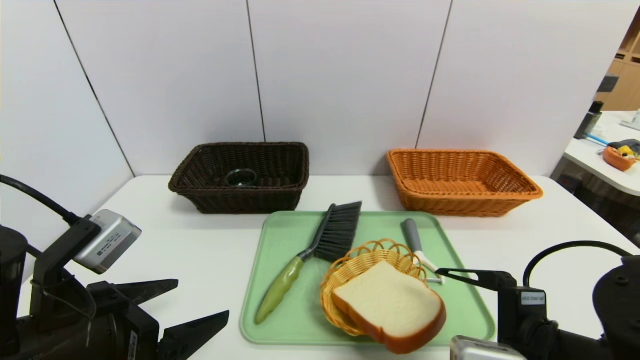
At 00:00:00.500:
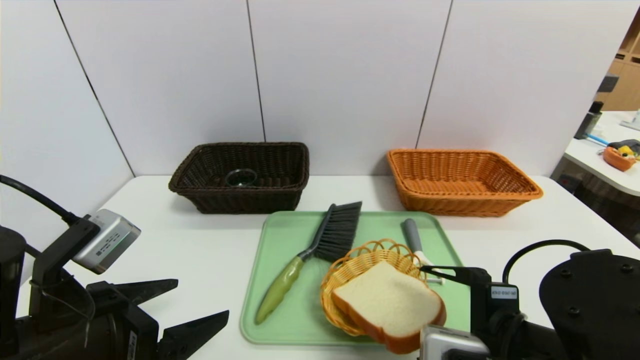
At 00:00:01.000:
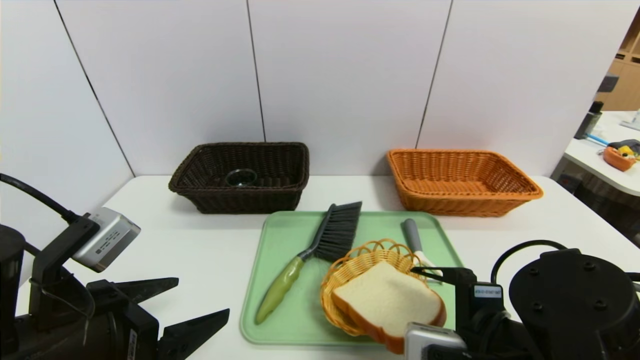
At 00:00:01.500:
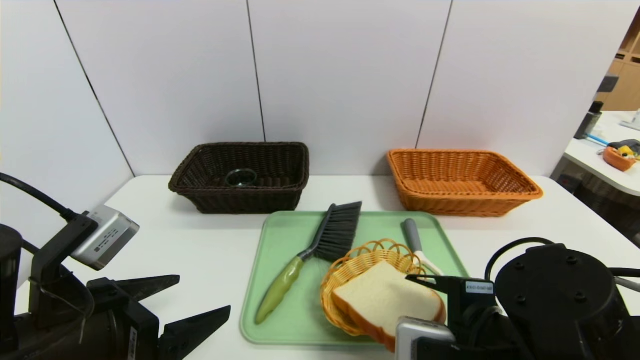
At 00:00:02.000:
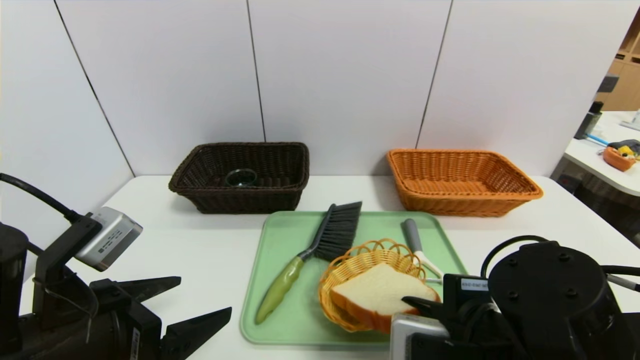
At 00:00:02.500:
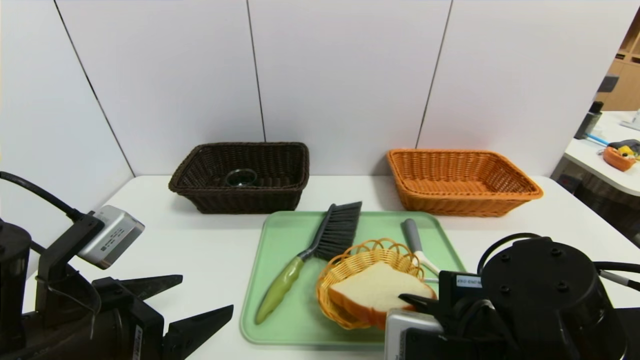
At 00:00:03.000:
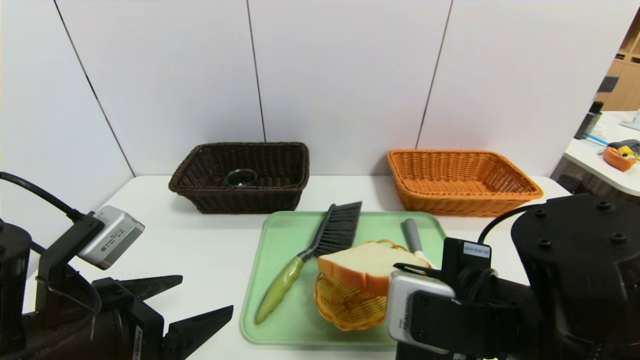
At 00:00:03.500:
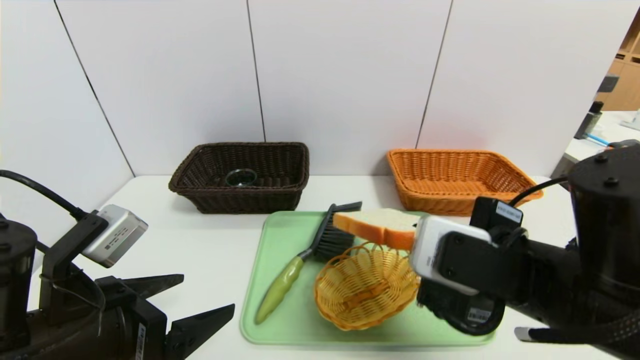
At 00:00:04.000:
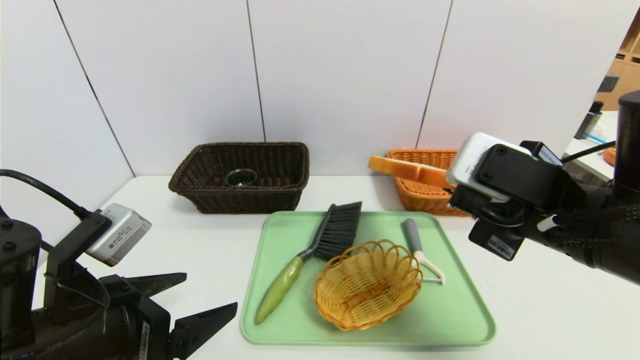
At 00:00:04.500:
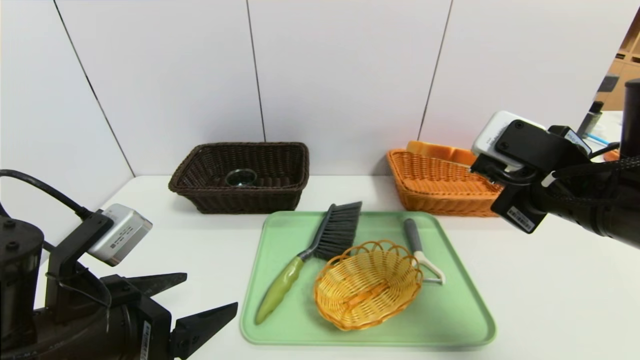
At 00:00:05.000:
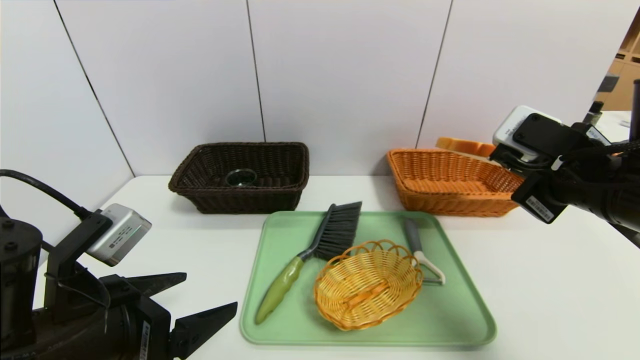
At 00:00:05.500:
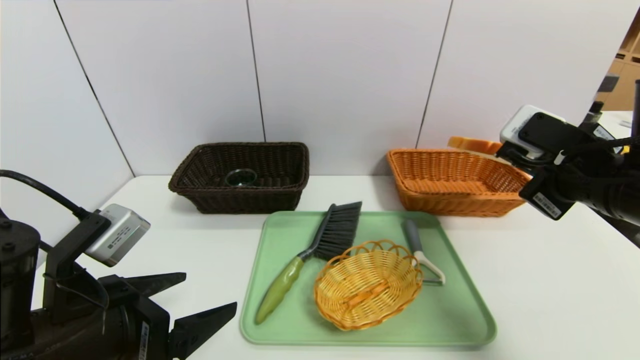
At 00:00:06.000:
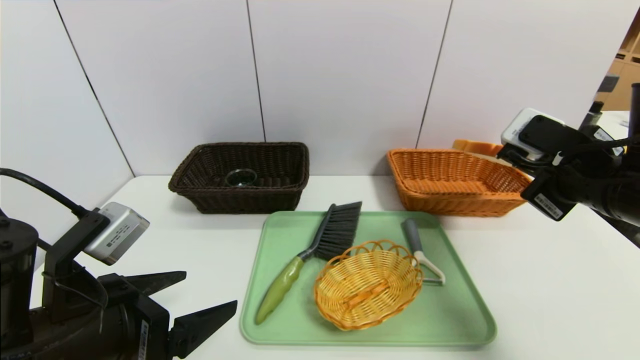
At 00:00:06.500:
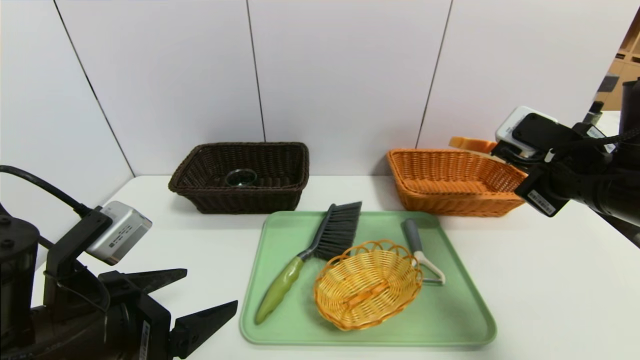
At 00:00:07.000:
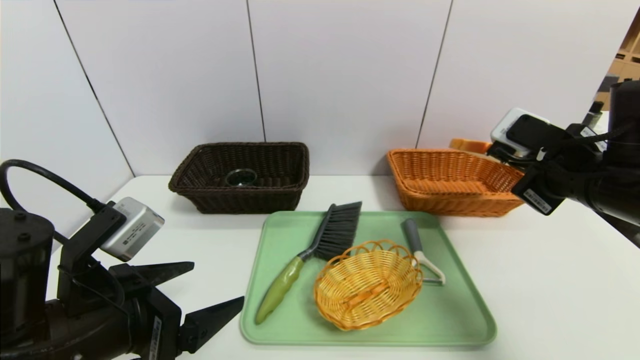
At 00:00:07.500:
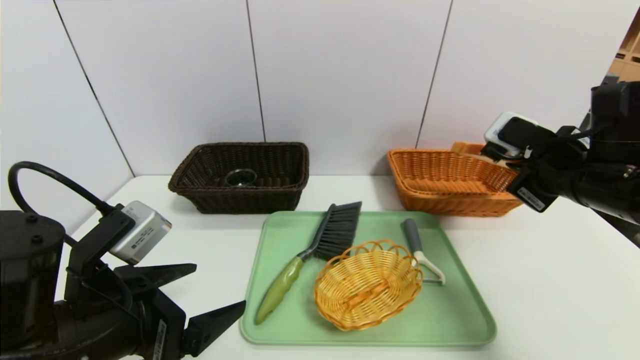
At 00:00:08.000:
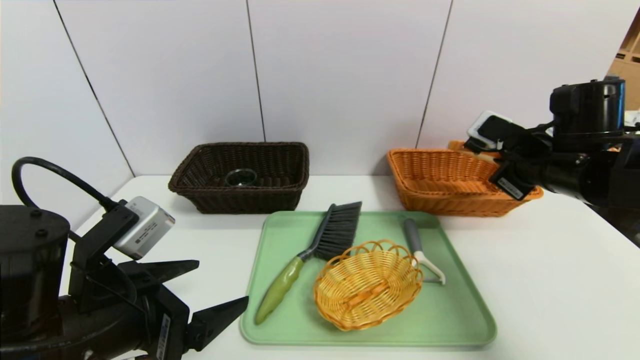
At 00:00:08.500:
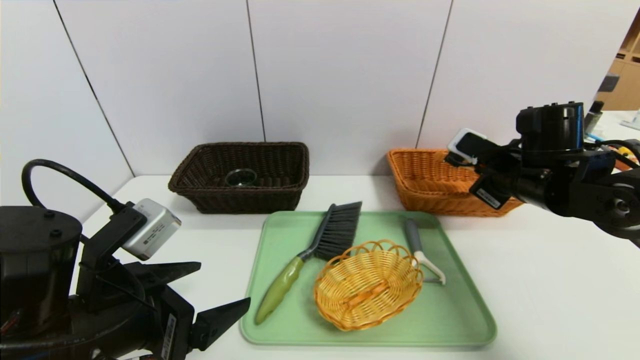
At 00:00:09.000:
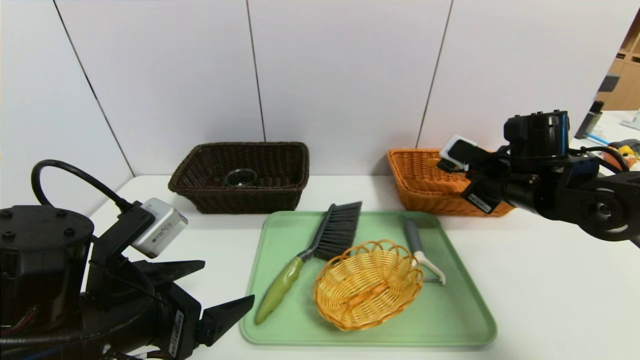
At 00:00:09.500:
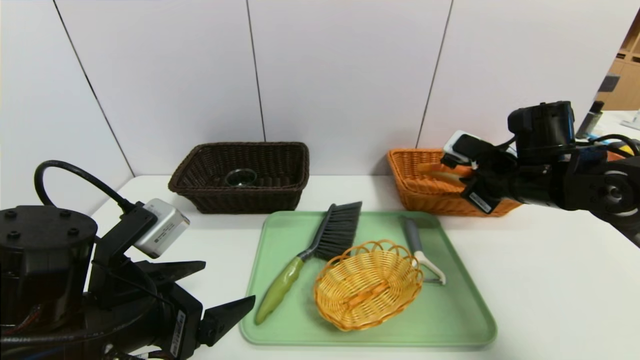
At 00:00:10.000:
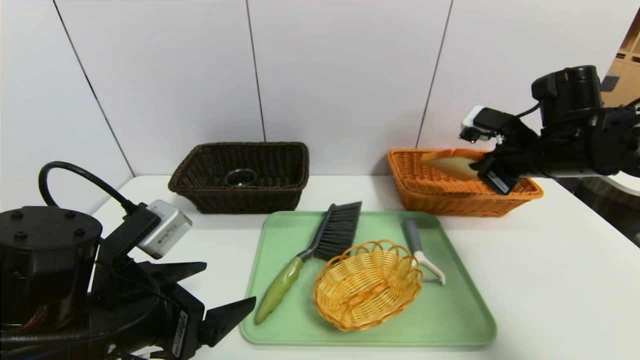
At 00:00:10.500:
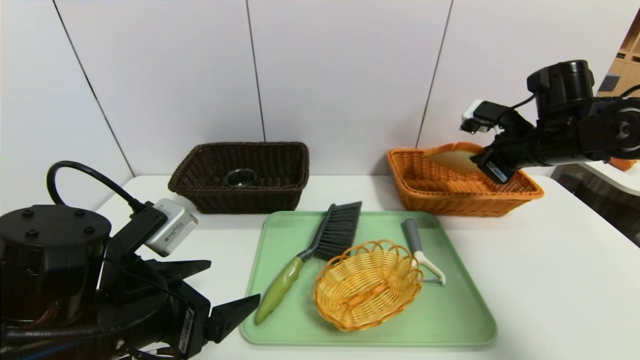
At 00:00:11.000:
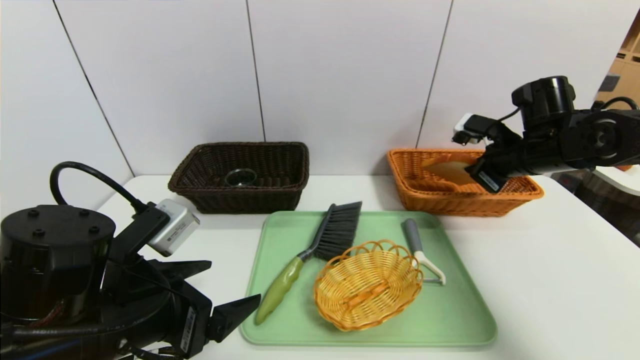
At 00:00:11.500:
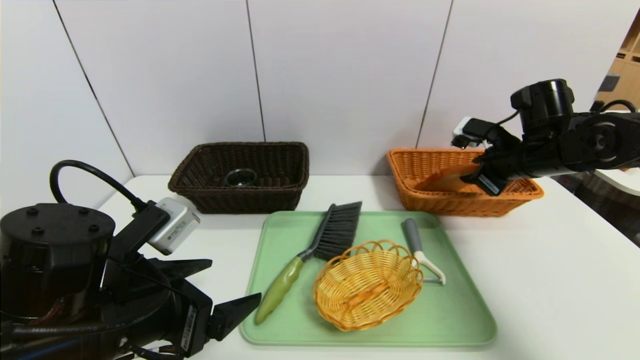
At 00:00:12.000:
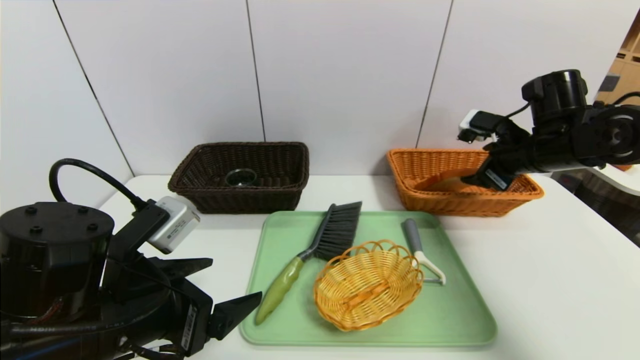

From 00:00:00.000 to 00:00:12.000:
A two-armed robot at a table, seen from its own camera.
Task of the whole recording: place the food in the right basket with the right gripper, and place the non food items in the left basket with the left gripper.
From 00:00:00.000 to 00:00:02.000: The right gripper closes up.
From 00:00:02.000 to 00:00:04.000: The right gripper is displaced upward by about 10 cm.
From 00:00:04.000 to 00:00:06.000: The right gripper goes approximately 10 cm to the right.
From 00:00:06.000 to 00:00:08.000: The right gripper goes about 5 cm forward.
From 00:00:08.000 to 00:00:10.000: The grippers move only a little.
From 00:00:10.000 to 00:00:12.000: The right gripper opens up.

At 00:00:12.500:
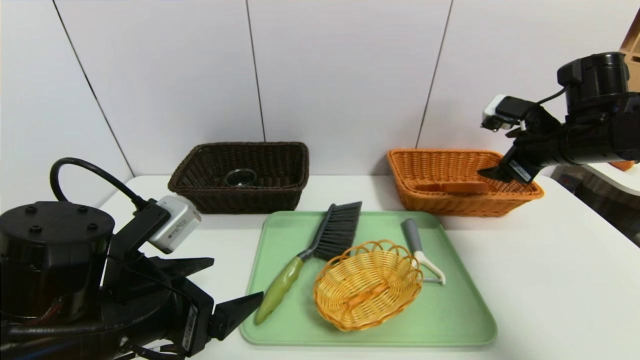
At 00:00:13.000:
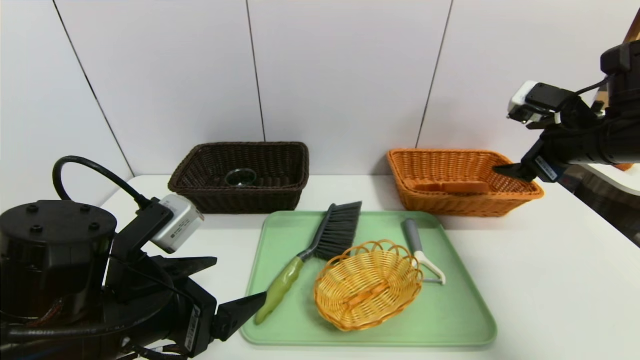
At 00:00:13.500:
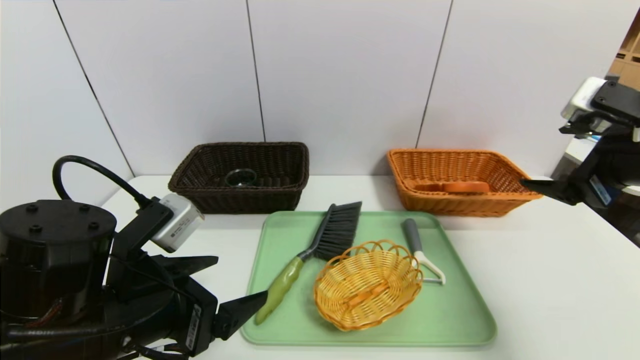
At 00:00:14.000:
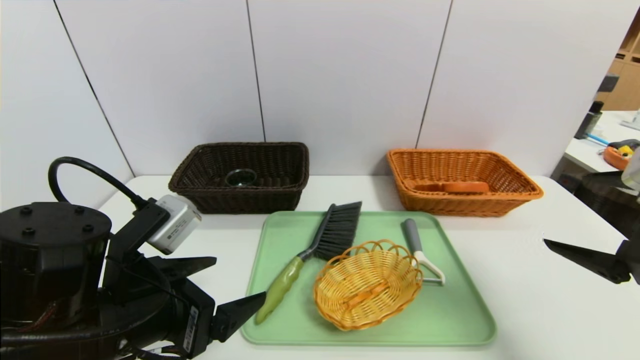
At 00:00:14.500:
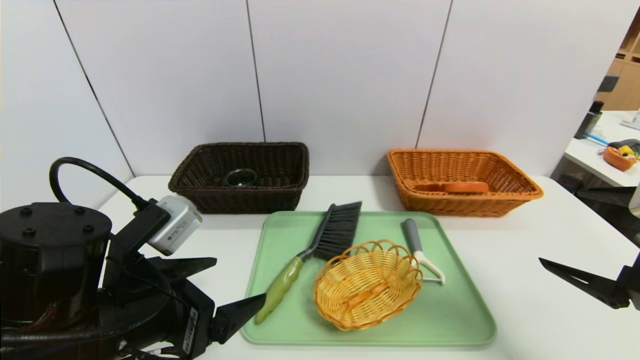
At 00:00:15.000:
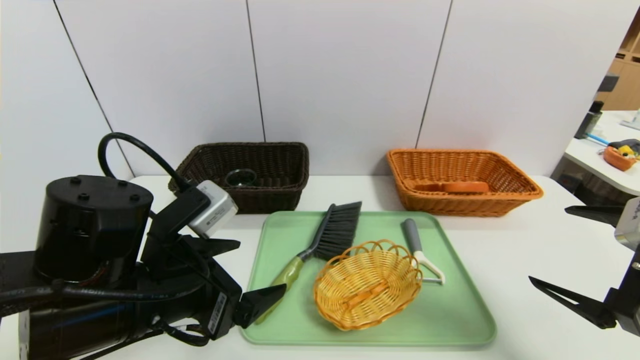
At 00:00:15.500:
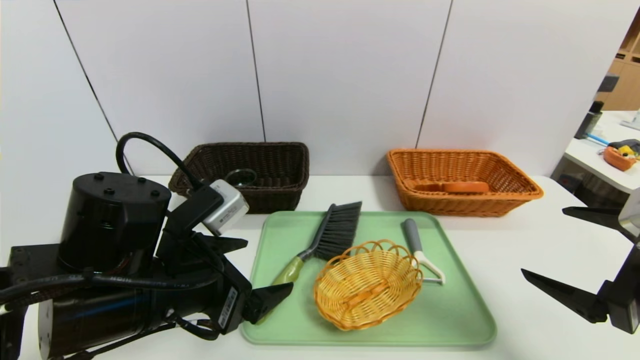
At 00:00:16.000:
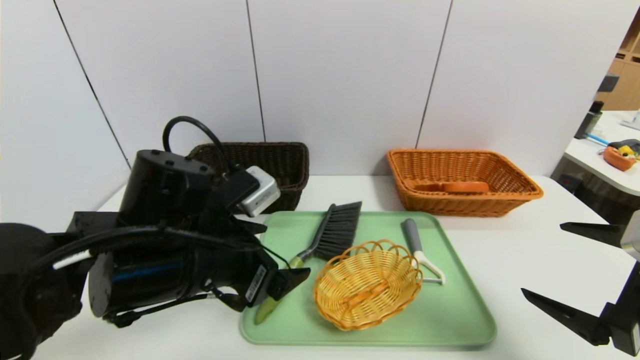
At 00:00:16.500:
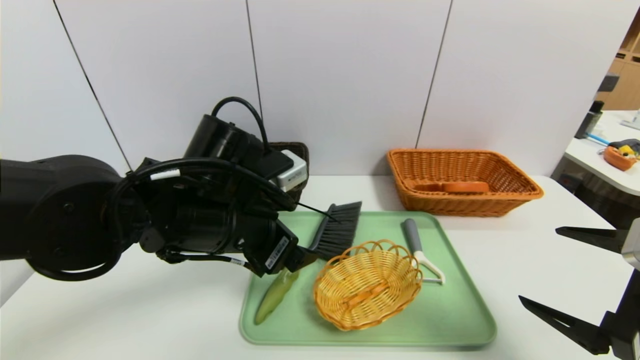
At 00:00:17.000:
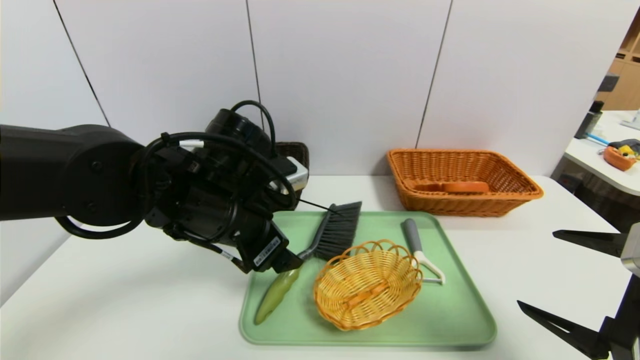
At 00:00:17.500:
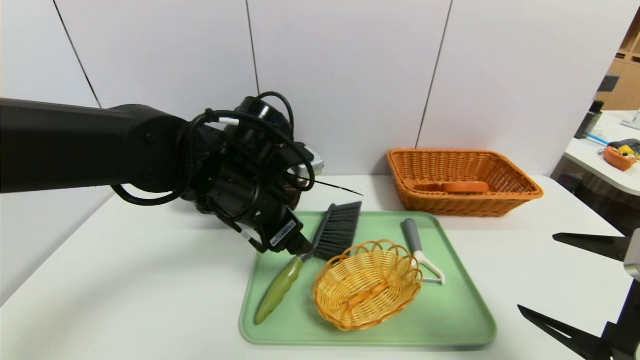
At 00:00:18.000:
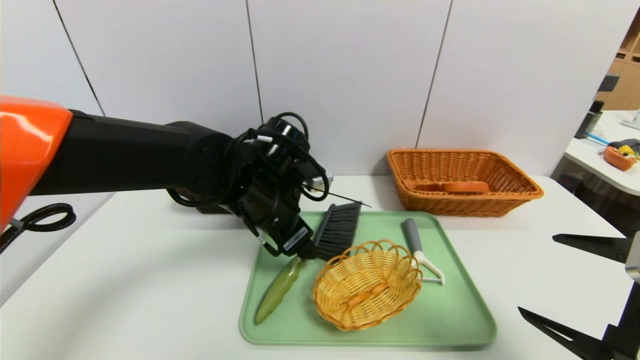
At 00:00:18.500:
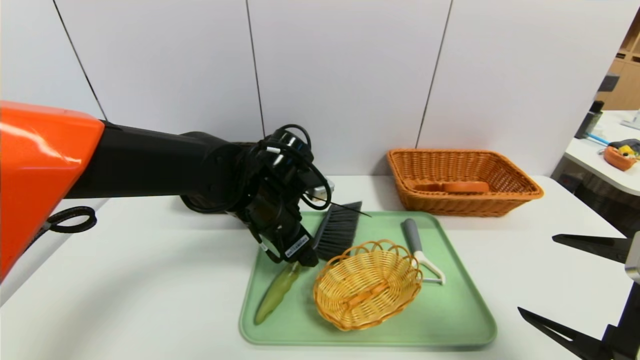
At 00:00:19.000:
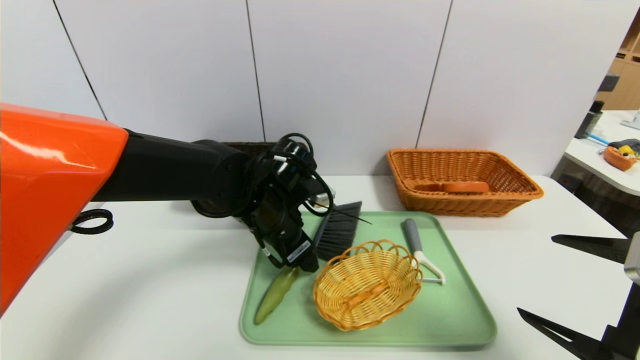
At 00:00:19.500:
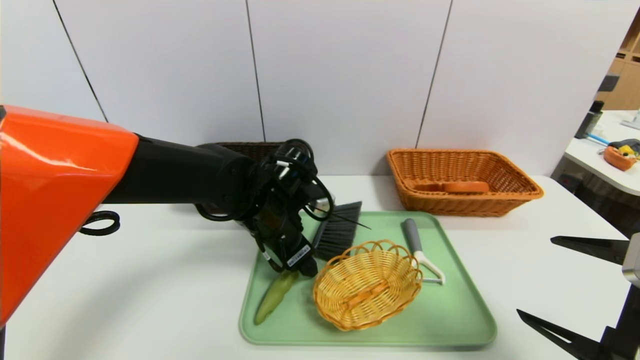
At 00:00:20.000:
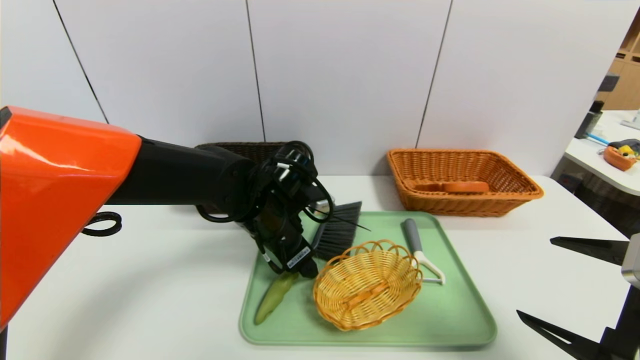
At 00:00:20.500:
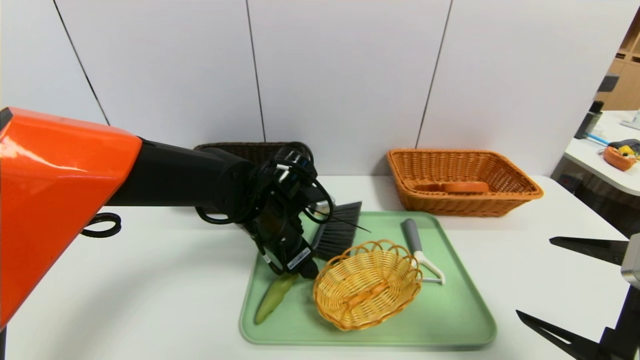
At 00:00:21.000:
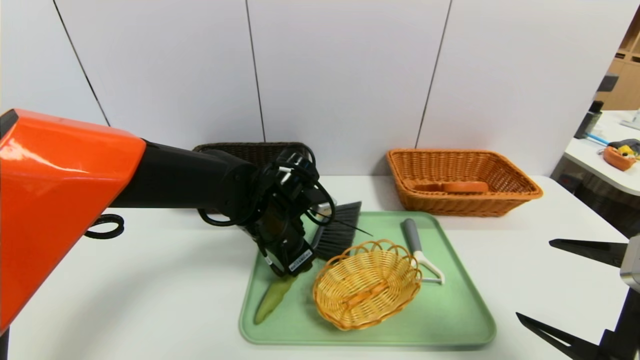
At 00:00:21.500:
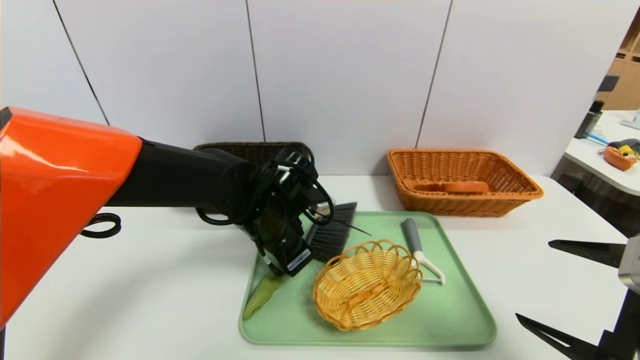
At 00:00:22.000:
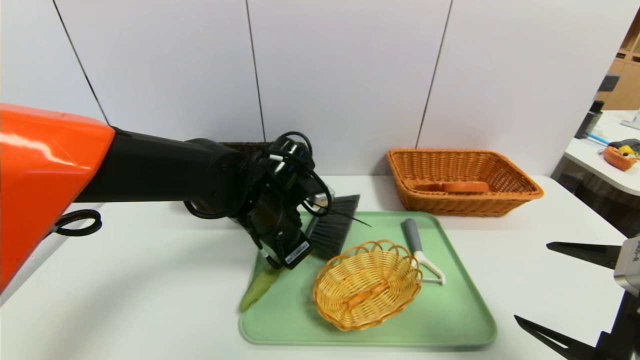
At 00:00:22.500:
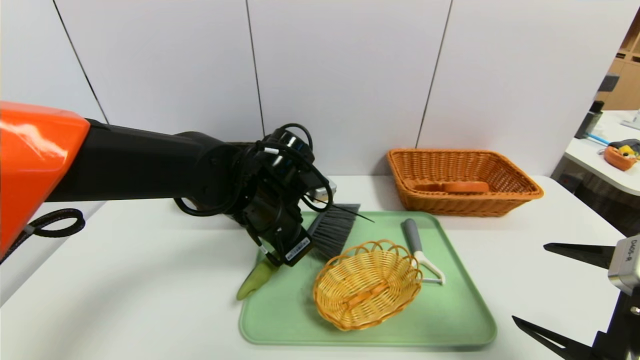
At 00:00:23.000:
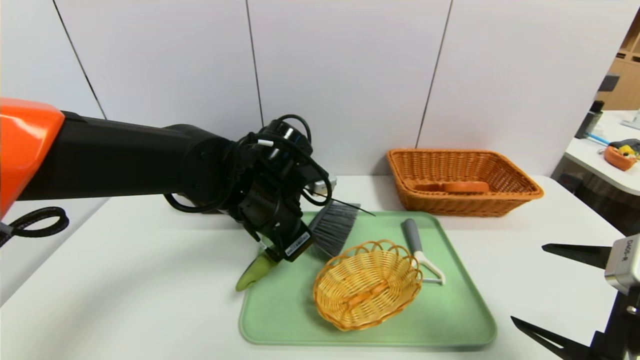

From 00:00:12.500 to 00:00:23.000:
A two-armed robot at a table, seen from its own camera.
Task of the whole recording: place the food in the right basket with the right gripper, and place the non food items in the left basket with the left gripper.
From 00:00:12.500 to 00:00:14.500: The right gripper is displaced backward by approximately 20 cm.
From 00:00:14.500 to 00:00:16.500: The left gripper goes about 10 cm forward and to the right.
From 00:00:16.500 to 00:00:19.000: The left gripper is displaced forward by roughly 10 cm.
From 00:00:19.000 to 00:00:21.000: The left gripper closes.
From 00:00:21.000 to 00:00:23.000: The left gripper moves some 5 cm, and closes its fingers.
